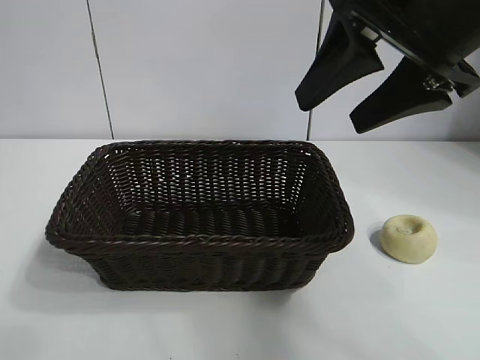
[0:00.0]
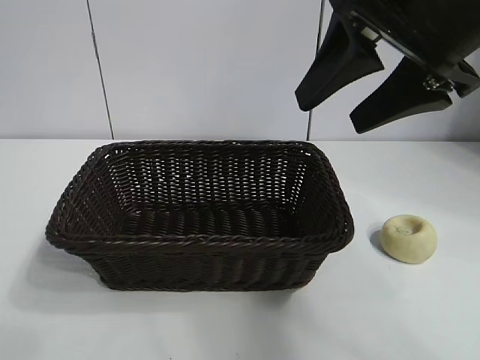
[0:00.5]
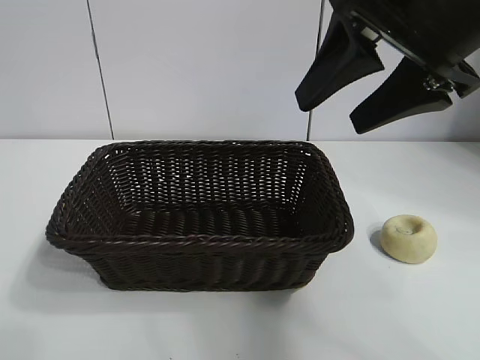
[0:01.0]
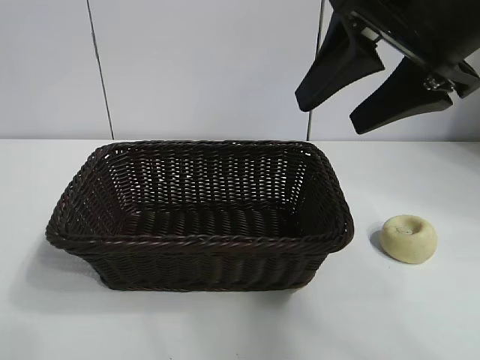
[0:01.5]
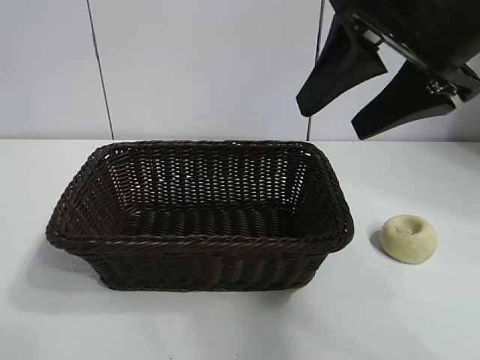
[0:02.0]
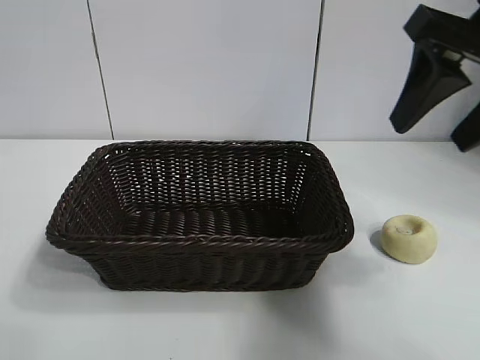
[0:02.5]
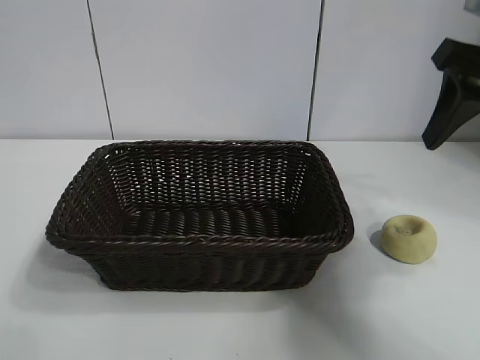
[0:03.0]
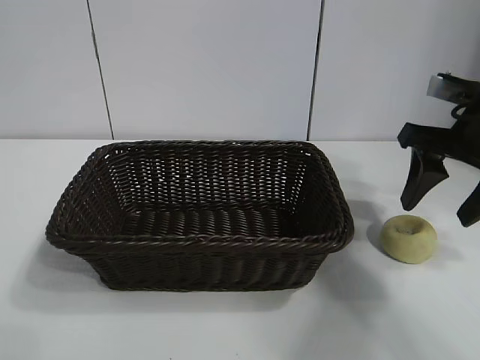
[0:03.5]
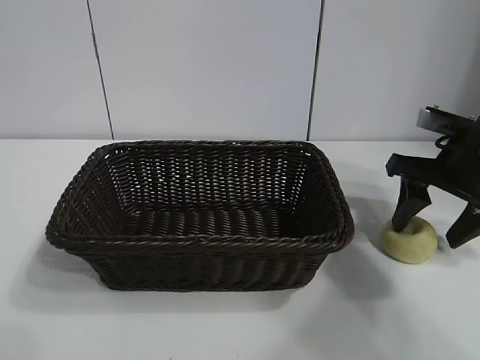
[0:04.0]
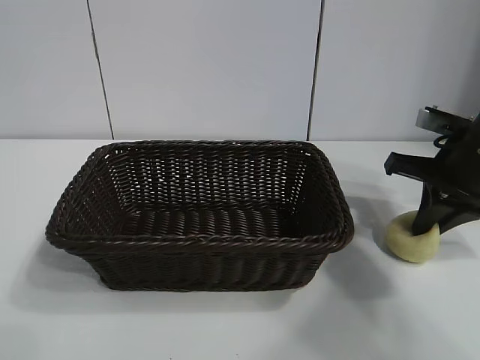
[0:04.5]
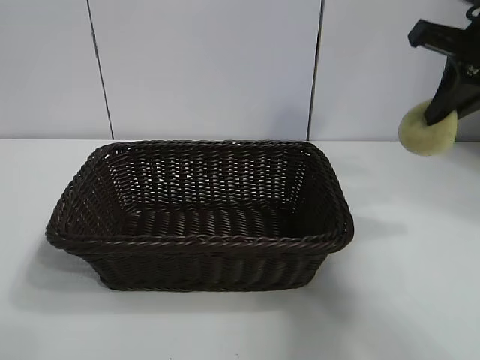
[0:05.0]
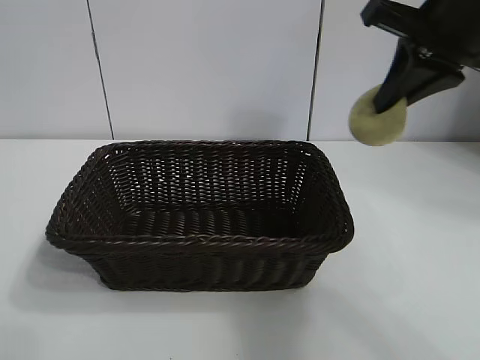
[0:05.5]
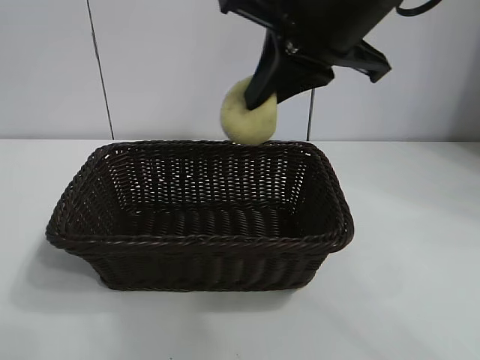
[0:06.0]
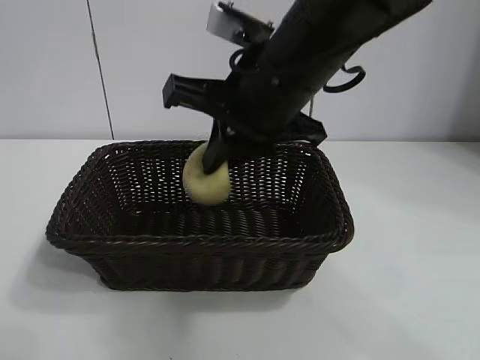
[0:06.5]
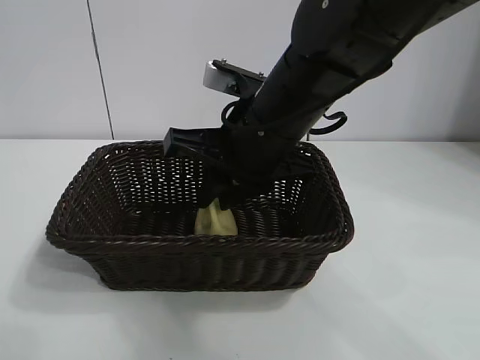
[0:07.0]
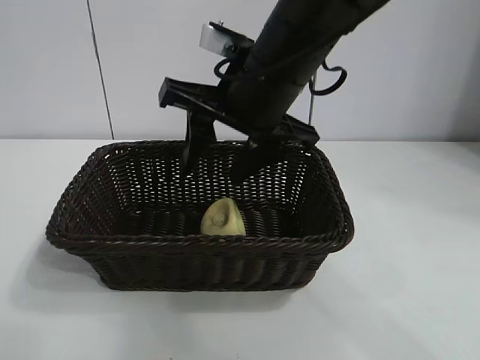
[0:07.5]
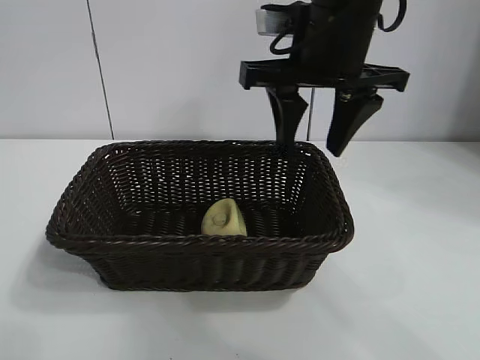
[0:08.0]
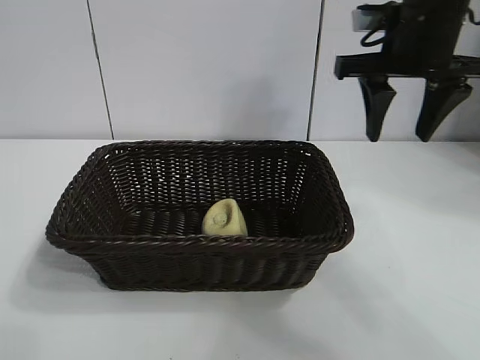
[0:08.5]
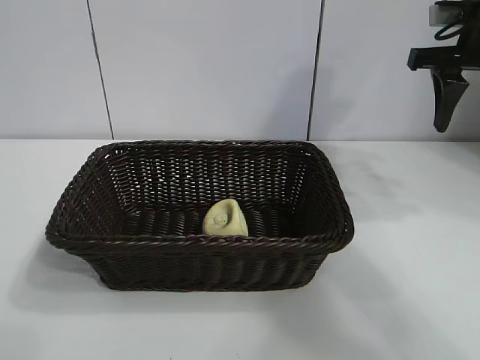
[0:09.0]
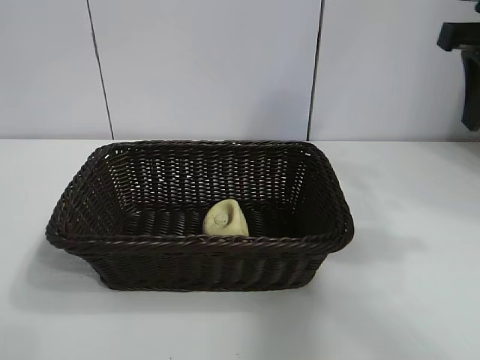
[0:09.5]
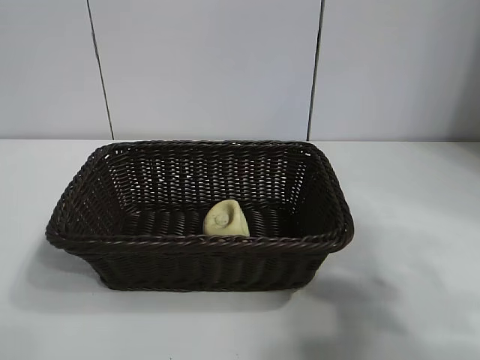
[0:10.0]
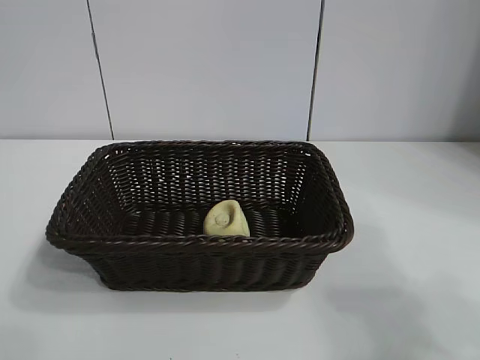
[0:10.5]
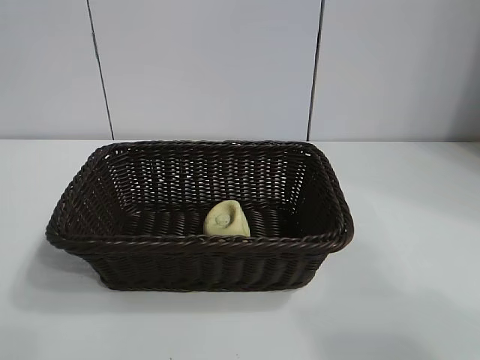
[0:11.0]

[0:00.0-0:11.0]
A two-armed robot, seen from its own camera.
Task of the whole recording: pick up the egg yolk pastry and put it into the basket.
Step, 0:00.0 to 0:04.5: Grasp egg yolk pastry with right gripper.
Step, 0:05.0 to 0:07.5: Place the egg yolk pastry in the basket with right gripper.

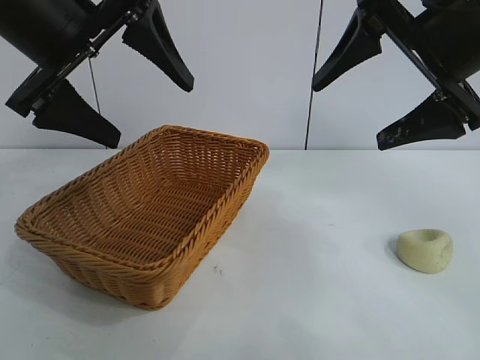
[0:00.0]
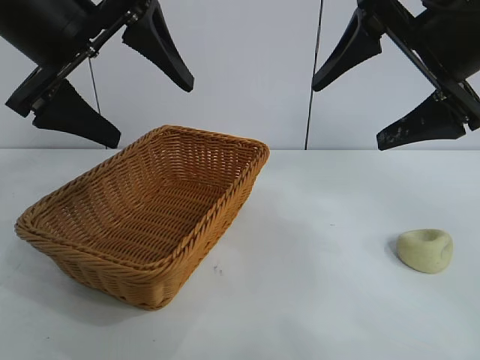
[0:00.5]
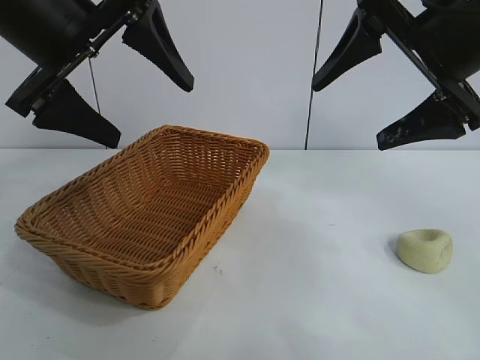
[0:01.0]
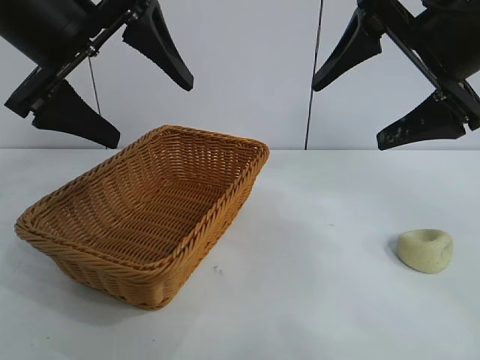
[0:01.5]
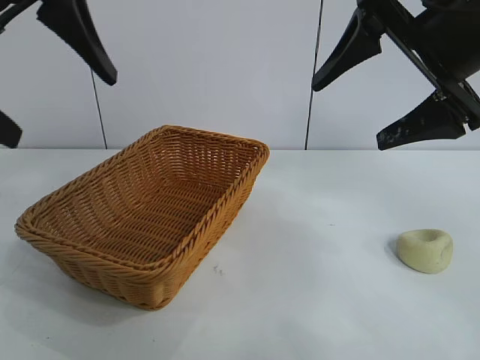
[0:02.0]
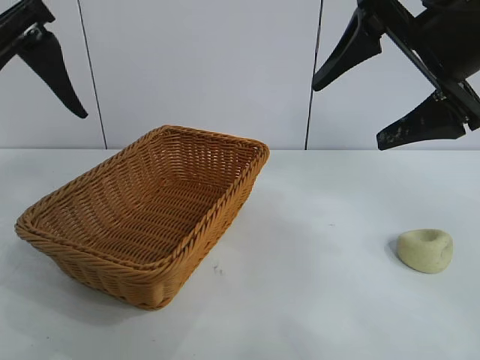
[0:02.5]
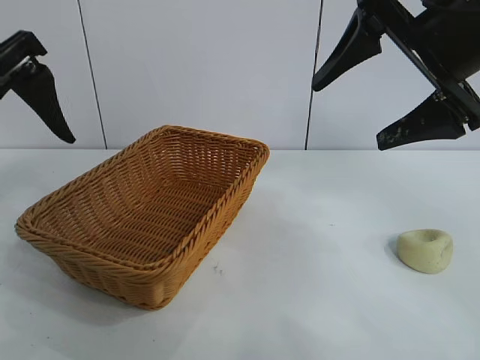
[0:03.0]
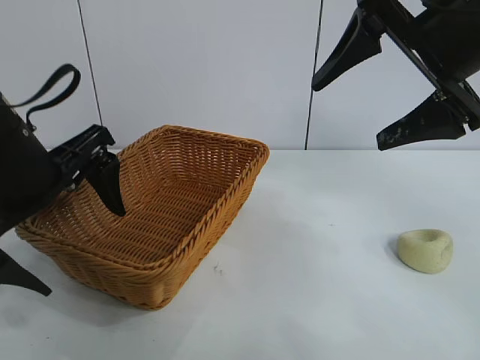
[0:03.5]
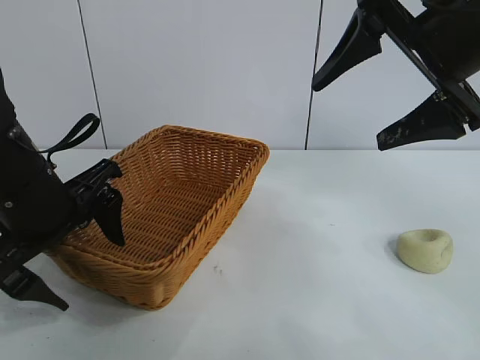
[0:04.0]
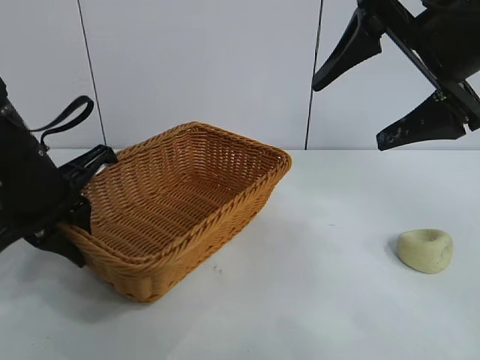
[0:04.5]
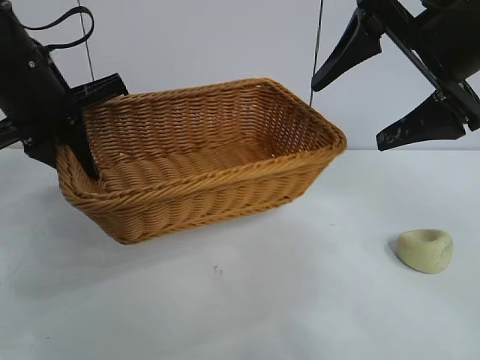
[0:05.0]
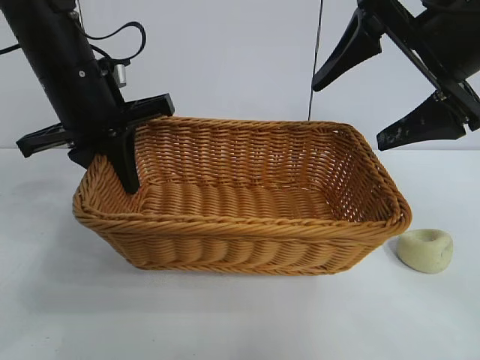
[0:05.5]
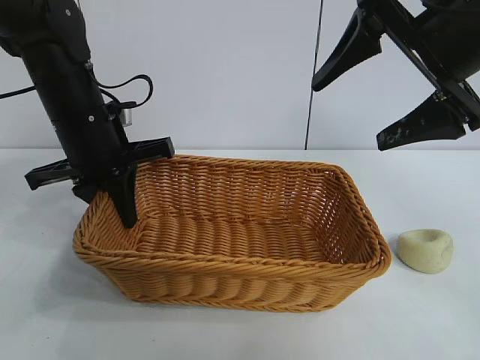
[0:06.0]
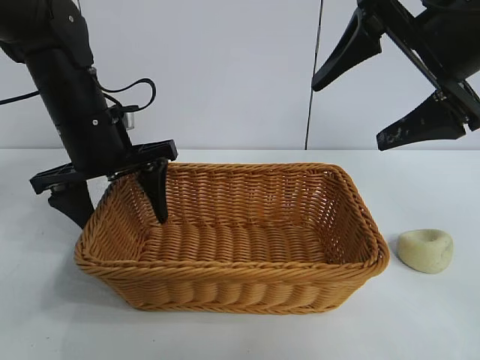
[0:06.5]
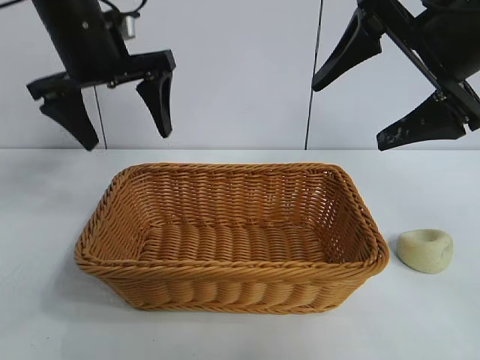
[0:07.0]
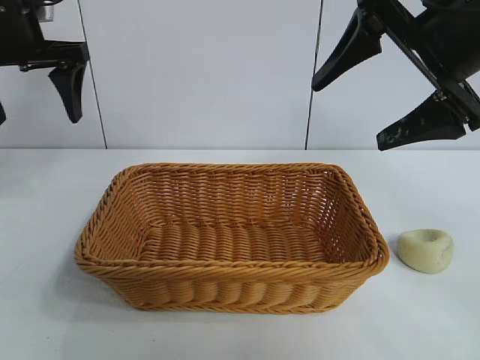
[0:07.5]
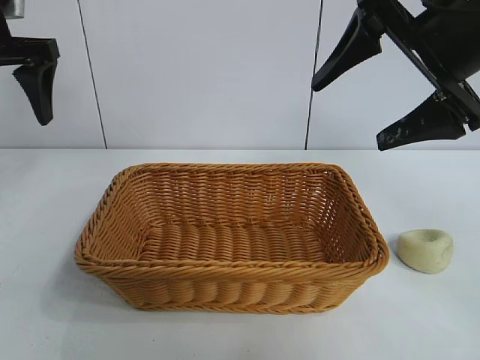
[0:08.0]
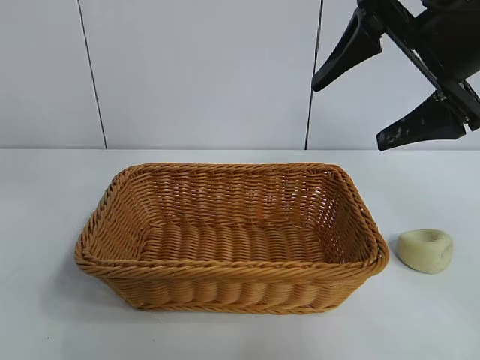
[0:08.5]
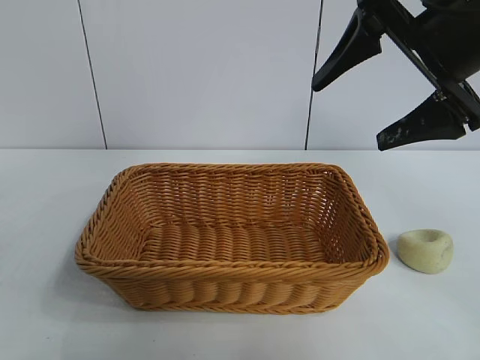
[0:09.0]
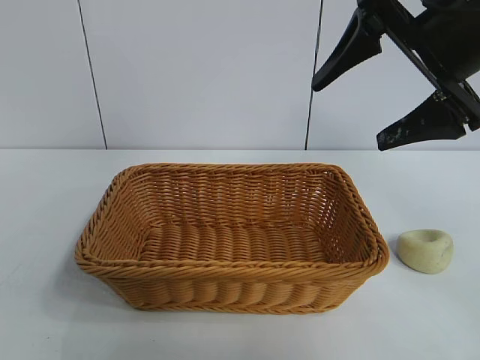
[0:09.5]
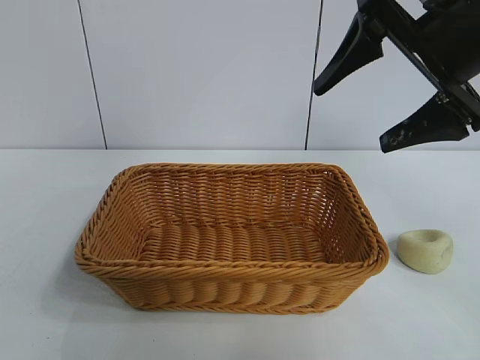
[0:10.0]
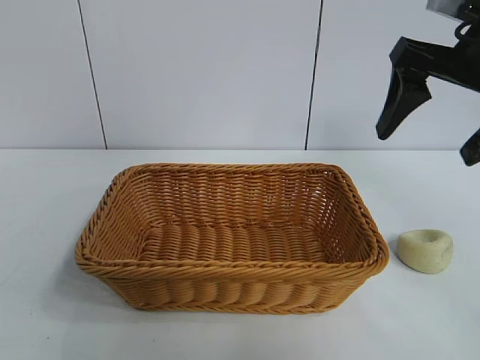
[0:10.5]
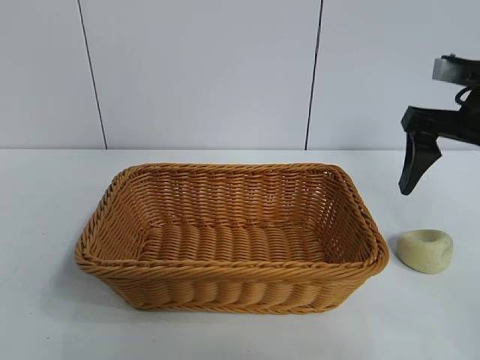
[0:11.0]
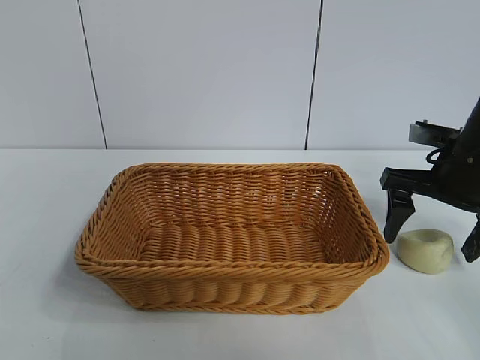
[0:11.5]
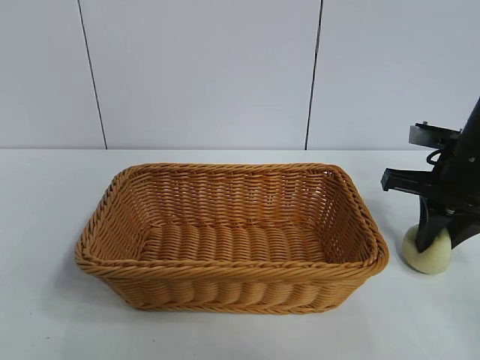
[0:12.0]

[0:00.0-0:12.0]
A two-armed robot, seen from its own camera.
Task of the whole recording: pick up the egg yolk pastry and put it into the basket.
Step, 0:01.5 to 0:04.0: Grasp the basket with left gripper.
Step, 0:04.5 to 0:06.5: Place the basket in the center of view with left gripper.
Step, 0:07.0 to 0:12.0: Grasp egg yolk pastry with right gripper.

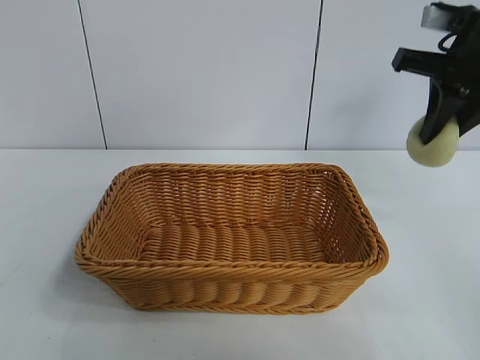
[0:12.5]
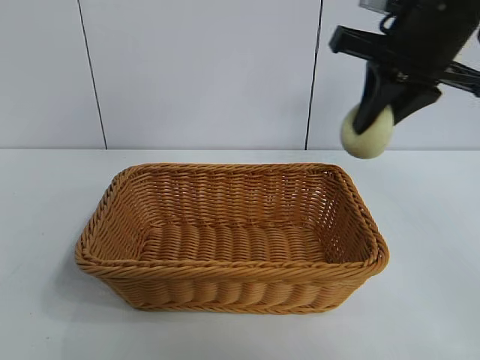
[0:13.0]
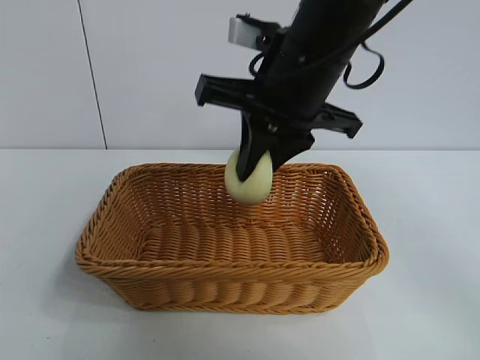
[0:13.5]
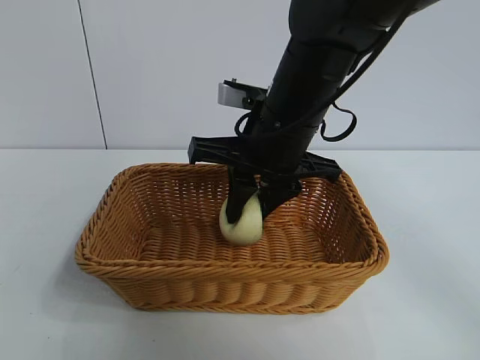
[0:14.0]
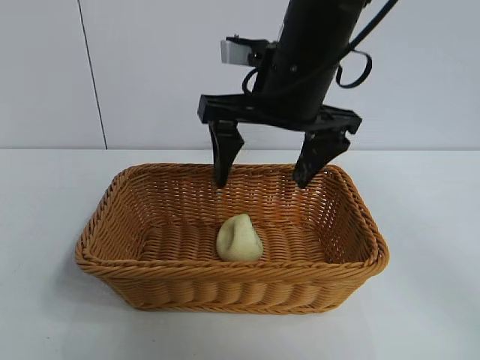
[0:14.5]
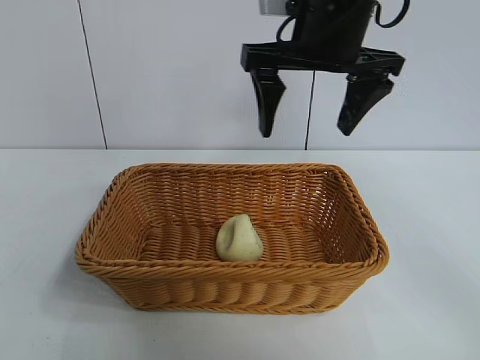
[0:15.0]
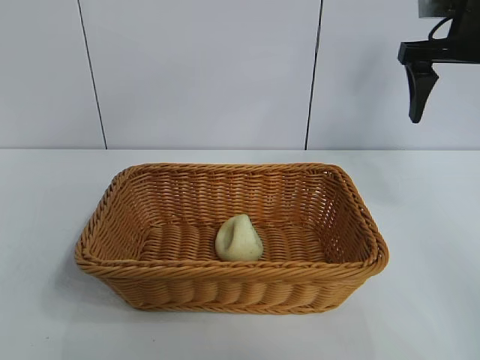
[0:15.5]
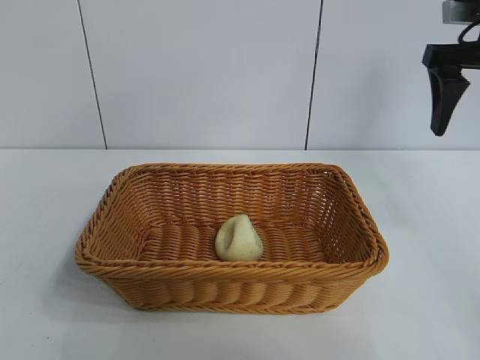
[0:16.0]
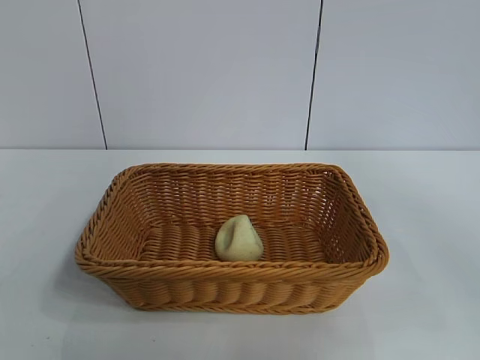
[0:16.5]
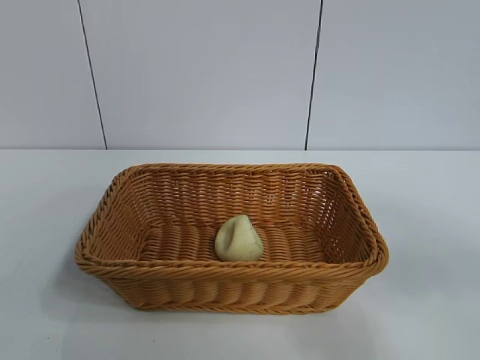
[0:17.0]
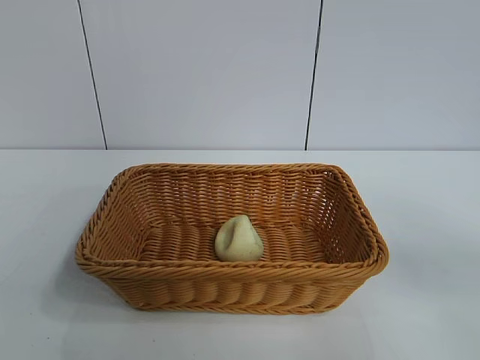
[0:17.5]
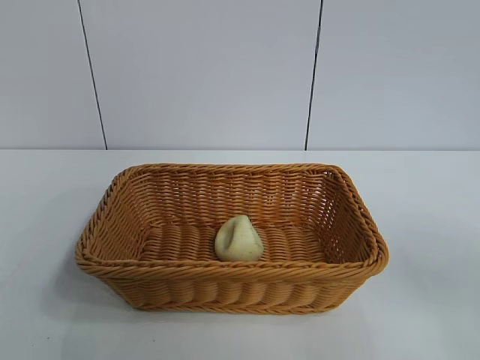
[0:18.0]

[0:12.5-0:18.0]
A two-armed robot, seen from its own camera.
Task of the whole recording: pick up the egg yolk pastry and put it into the basket.
Step, 0:12.5 to 0:14.0: Place the egg yolk pastry in the basket with right gripper.
